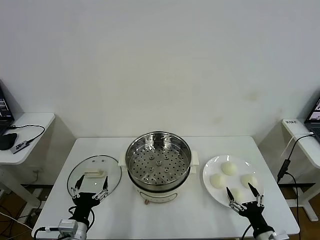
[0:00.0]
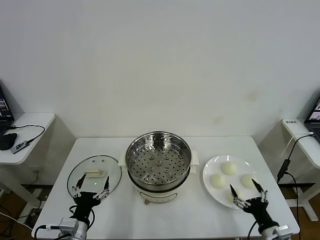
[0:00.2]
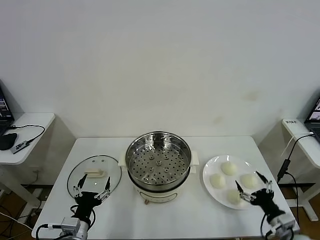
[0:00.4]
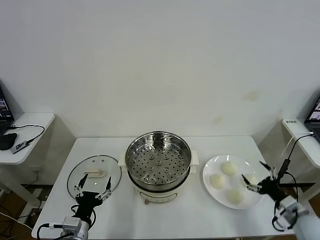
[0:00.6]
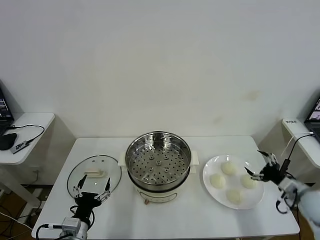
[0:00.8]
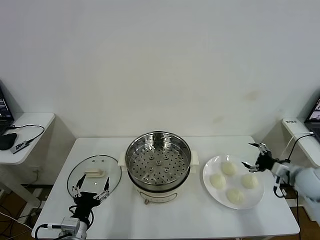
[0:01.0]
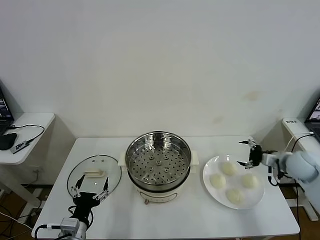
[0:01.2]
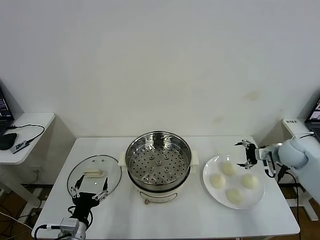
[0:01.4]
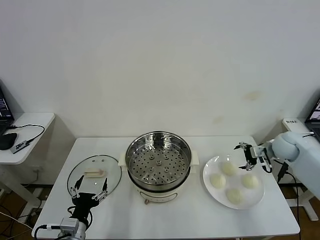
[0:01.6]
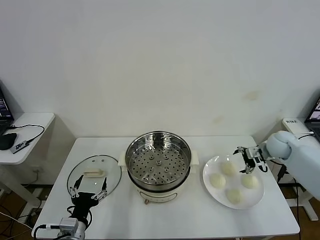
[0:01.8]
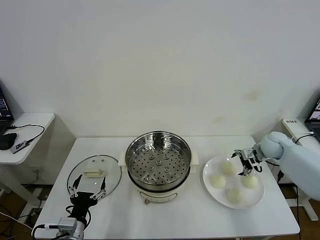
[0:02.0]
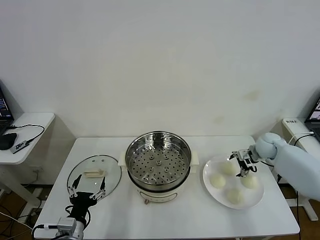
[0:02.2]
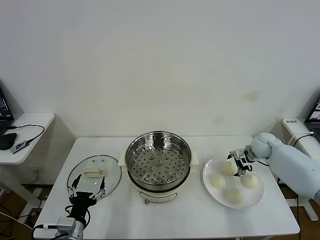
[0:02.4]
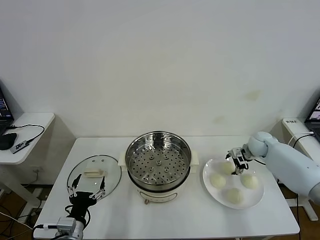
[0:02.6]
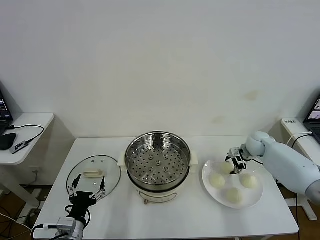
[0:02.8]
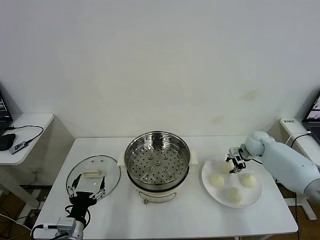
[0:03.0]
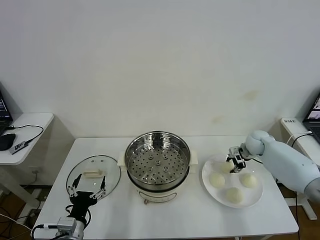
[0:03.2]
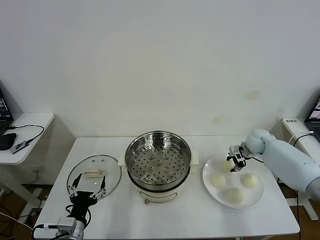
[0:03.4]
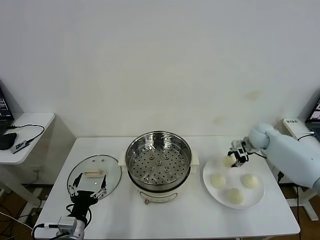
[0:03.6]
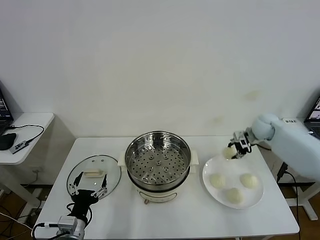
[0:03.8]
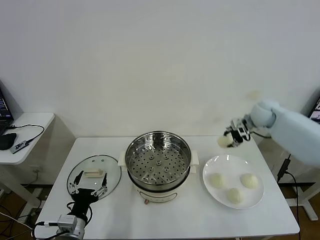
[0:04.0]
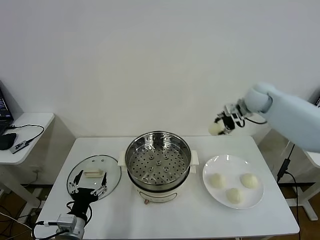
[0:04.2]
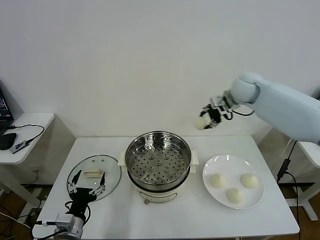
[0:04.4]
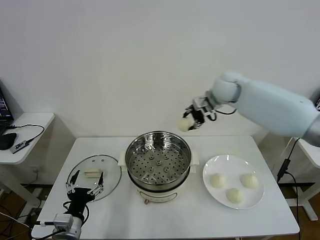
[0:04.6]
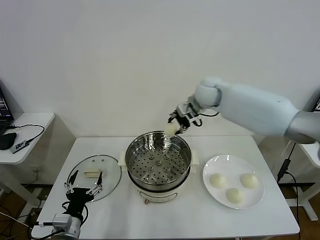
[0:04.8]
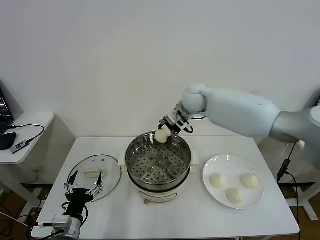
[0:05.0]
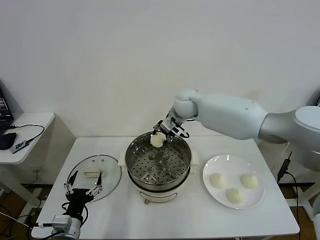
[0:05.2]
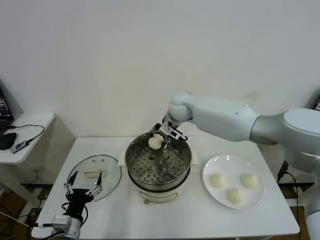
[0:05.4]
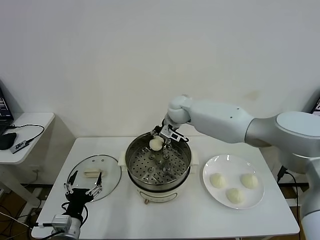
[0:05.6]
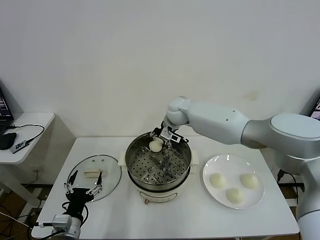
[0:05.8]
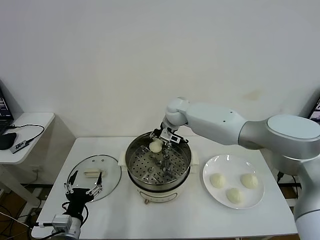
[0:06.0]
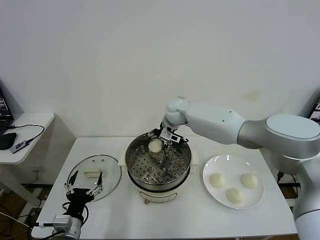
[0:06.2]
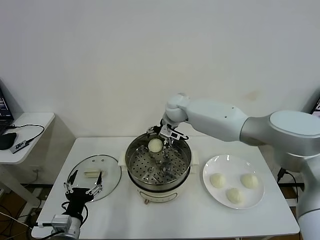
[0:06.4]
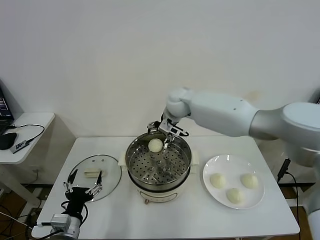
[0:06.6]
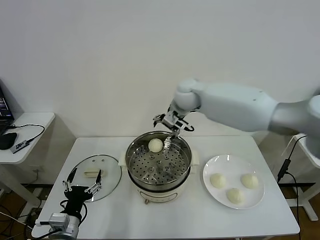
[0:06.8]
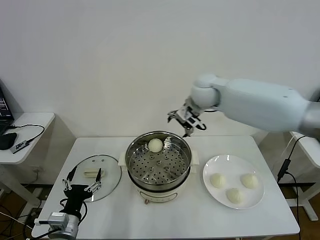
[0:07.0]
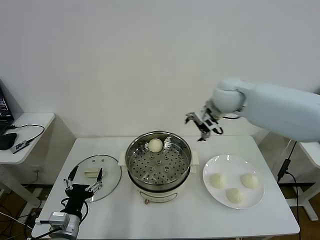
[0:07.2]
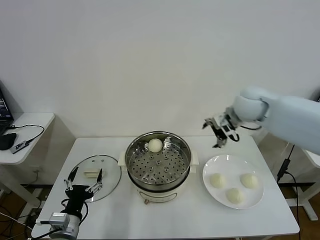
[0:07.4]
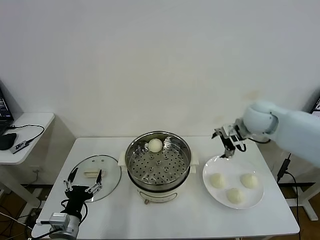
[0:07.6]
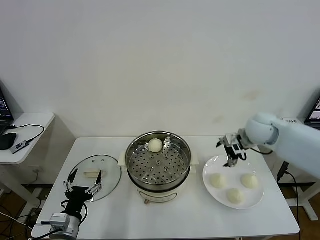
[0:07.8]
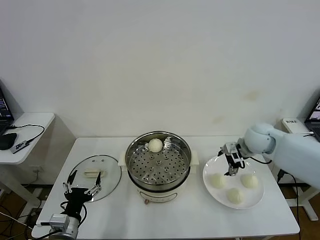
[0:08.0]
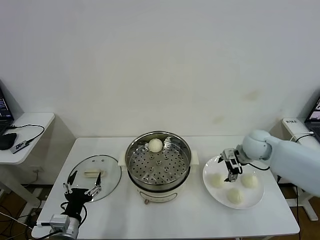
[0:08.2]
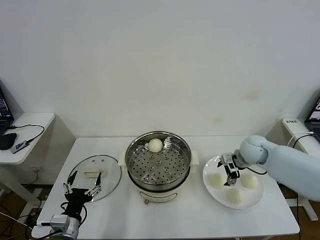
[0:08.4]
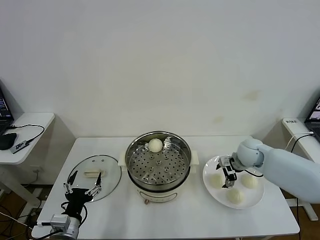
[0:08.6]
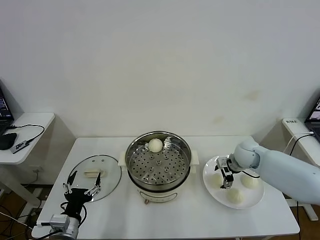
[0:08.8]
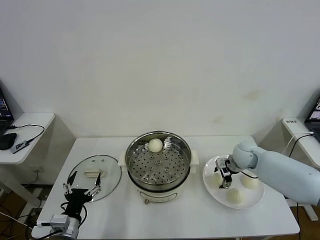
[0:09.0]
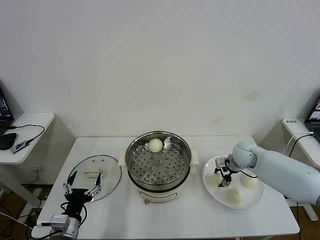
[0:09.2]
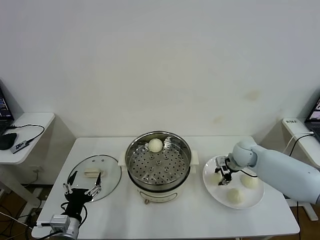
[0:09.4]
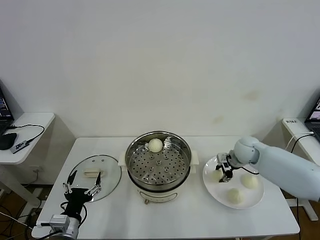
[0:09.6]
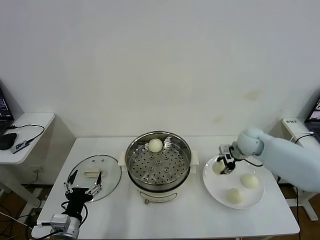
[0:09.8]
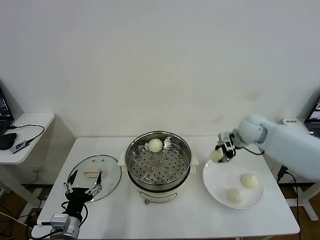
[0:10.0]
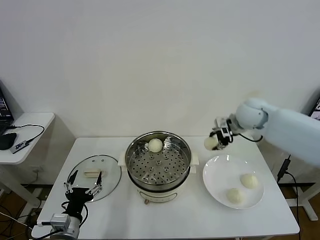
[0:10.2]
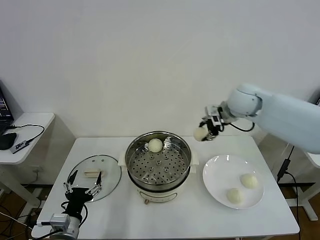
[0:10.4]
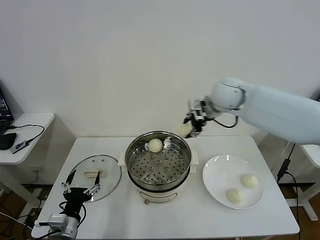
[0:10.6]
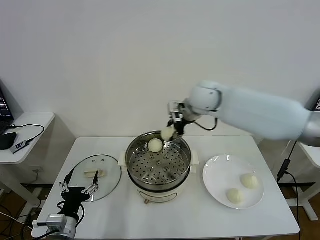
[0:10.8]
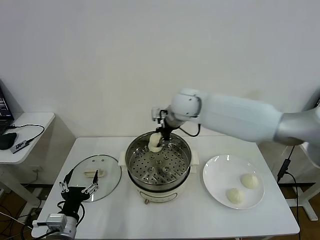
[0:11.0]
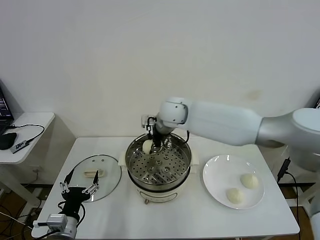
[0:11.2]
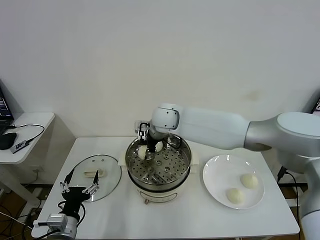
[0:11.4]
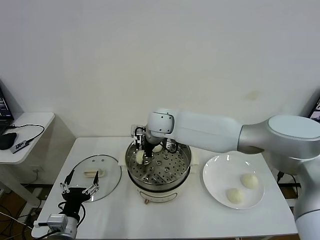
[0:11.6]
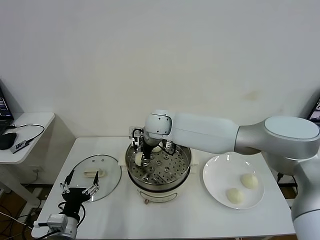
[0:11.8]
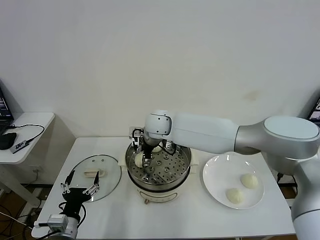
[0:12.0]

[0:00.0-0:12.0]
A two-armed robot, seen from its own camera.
Task of the whole recording: take steamed baozi put them in steamer then cover it.
Step, 0:00.0 to 0:03.2: Grasp the baozi in the plate with right gripper.
Step, 0:03.4 to 0:06.2: Place the baozi on the steamer with right gripper.
Step, 0:06.4 to 0:09.4: Grasp the baozi in the plate with right gripper.
0:01.6 to 0:03.0: The right gripper goes some 10 cm forward and downward, and closes up.
0:03.0 to 0:04.4: The right gripper goes approximately 30 cm upward and to the left.
0:04.4 to 0:06.0: The right gripper goes some 20 cm to the left and downward, and opens its fingers.
0:06.0 to 0:07.6: The right gripper heads to the right and backward, covering about 25 cm, and opens.
0:07.6 to 0:09.0: The right gripper is displaced downward by roughly 15 cm, and closes.
0:09.0 to 0:10.4: The right gripper shifts about 25 cm upward and to the left, and closes.
0:10.4 to 0:12.0: The right gripper travels to the left and downward by some 25 cm, and opens its fingers.

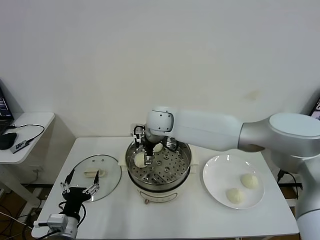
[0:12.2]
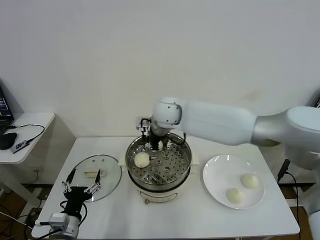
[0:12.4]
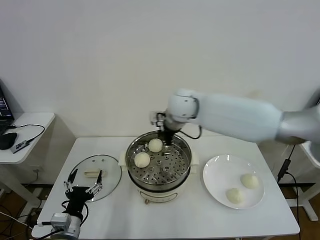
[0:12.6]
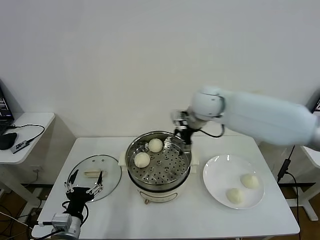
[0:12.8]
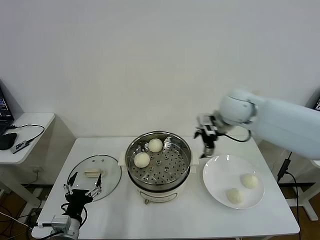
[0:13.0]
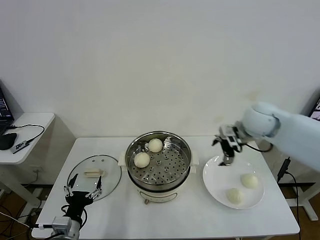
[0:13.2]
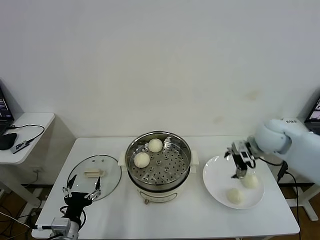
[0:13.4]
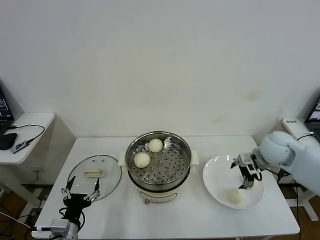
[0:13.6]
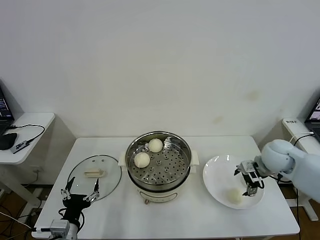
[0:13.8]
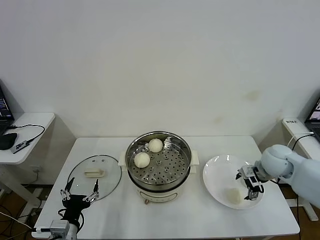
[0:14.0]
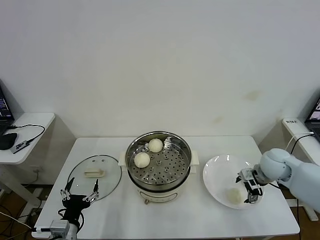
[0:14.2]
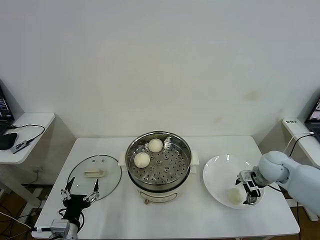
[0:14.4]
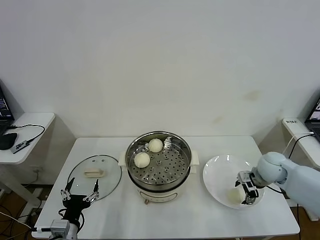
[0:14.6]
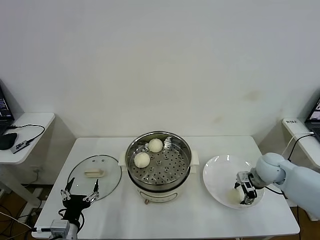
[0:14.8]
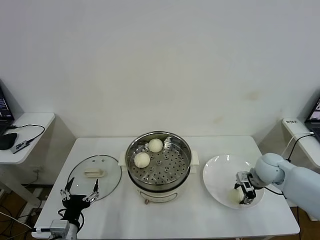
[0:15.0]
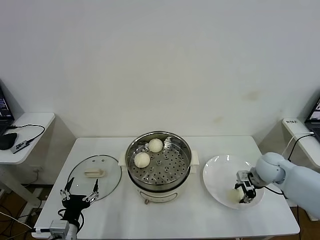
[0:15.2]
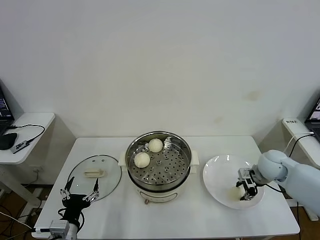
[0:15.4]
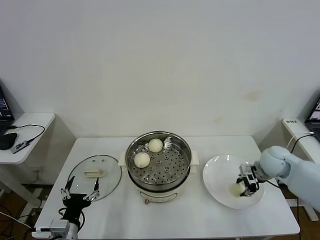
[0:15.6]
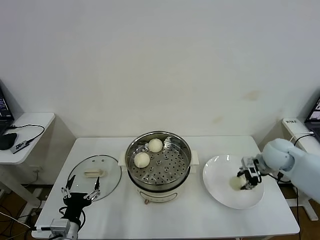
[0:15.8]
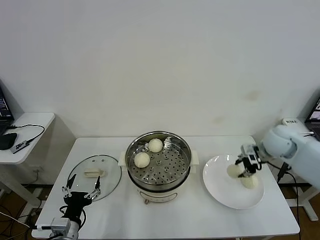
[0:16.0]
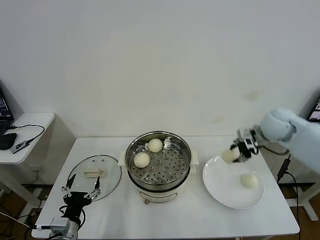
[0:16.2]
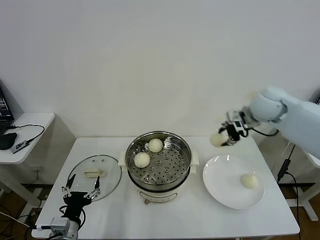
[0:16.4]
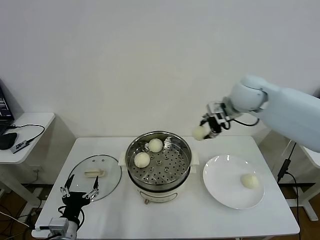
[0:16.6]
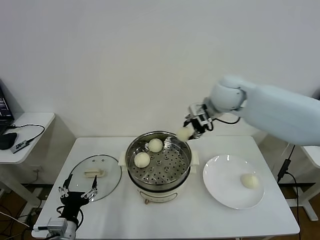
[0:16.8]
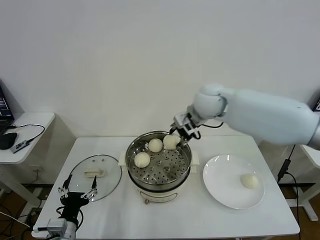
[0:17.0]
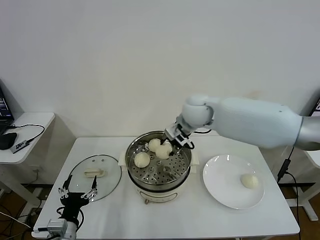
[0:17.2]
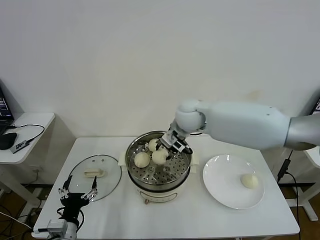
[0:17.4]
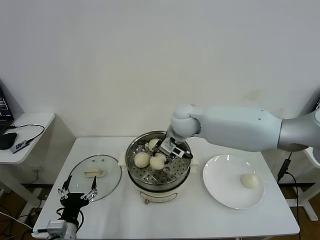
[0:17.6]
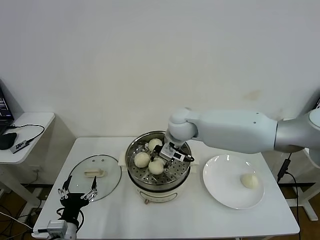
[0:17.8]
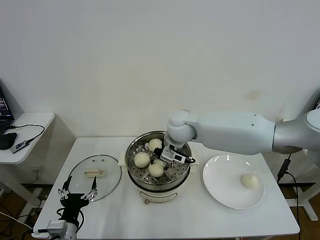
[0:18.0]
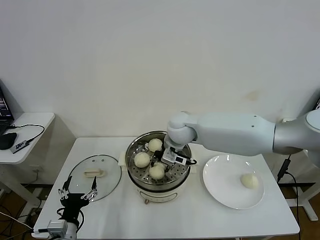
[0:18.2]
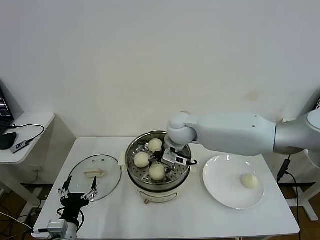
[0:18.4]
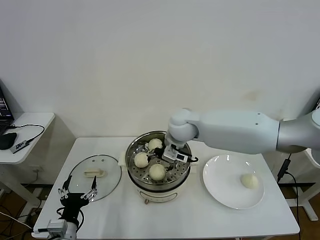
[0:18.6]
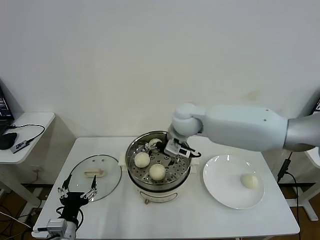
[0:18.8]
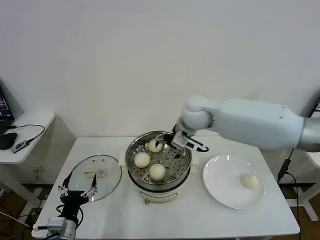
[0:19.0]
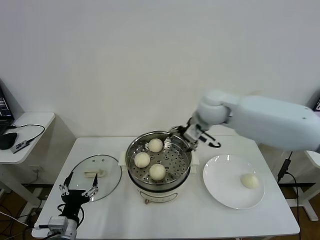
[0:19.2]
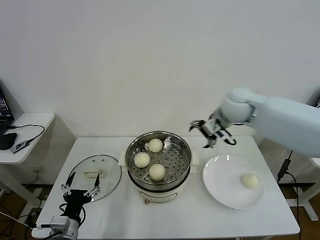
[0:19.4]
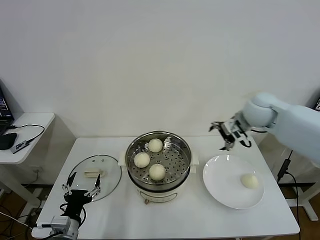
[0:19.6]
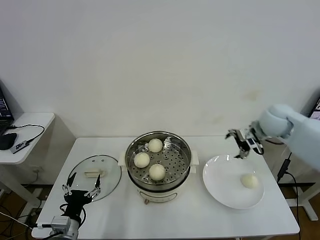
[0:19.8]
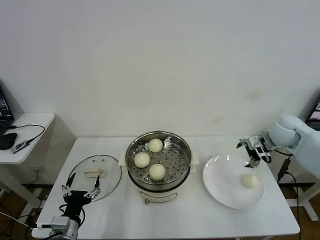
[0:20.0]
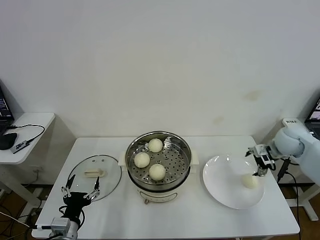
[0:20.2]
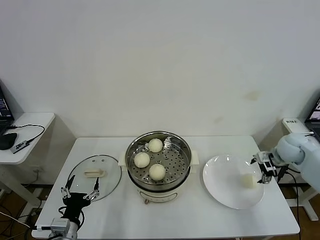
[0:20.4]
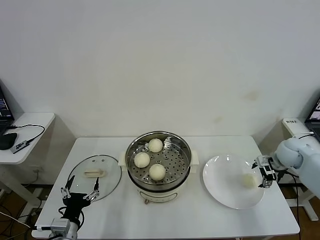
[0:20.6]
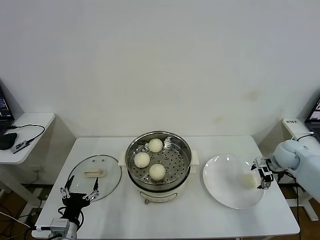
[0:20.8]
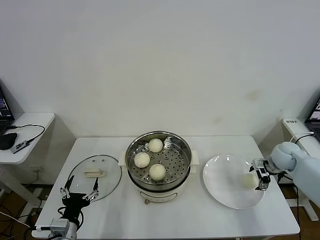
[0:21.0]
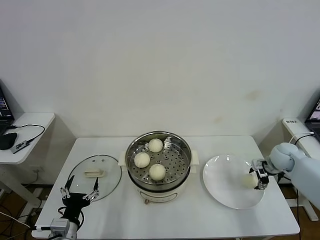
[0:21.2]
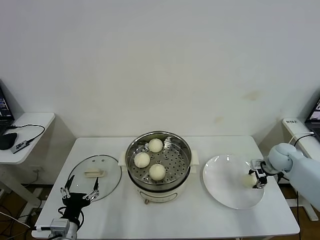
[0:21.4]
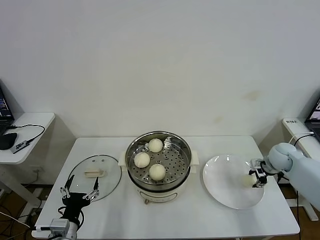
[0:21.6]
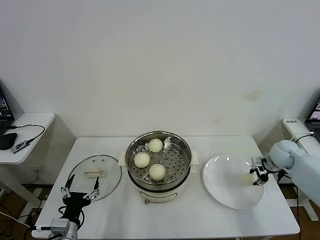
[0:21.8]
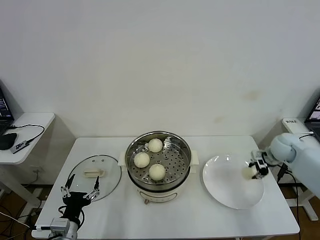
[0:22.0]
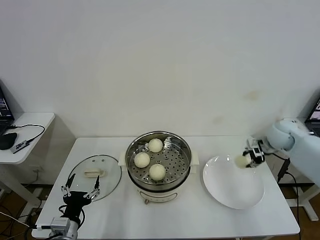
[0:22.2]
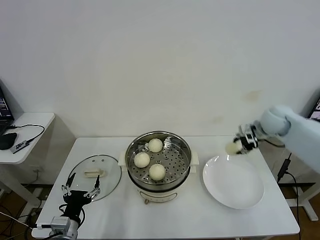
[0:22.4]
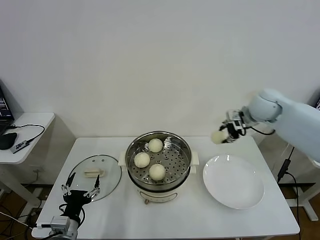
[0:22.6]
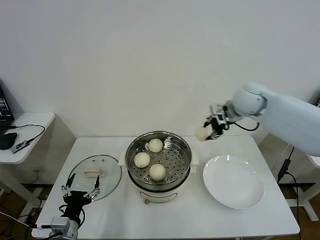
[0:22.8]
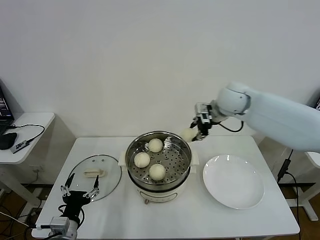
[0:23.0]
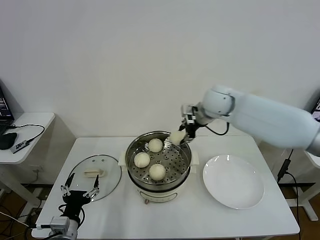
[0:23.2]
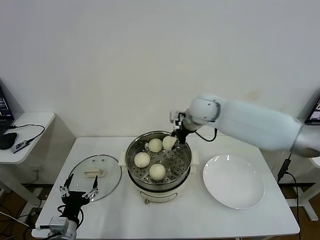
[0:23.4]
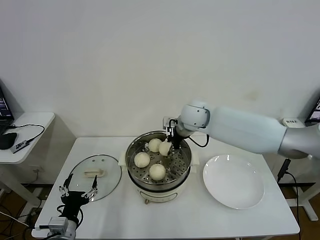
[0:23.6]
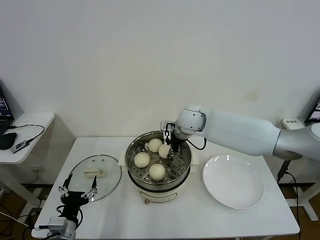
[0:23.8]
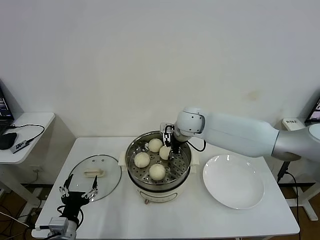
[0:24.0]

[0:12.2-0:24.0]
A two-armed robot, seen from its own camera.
Task of the whole recording: take steamed baozi put them in steamer then cover it.
Step, 0:12.4 to 0:15.4: Grasp the baozi in the plate with right gripper.
Step, 0:15.6 to 0:18.4: Place the baozi on the steamer with right gripper.
Step, 0:18.8 to 0:21.6: Grasp the baozi in the plate with right gripper.
0:12.2 to 0:13.6: The right gripper is displaced to the right by about 35 cm.
0:13.6 to 0:15.2: The right gripper moves downward, approximately 10 cm, and closes.
0:15.2 to 0:16.6: The right gripper heads upward and to the left, covering roughly 30 cm.
0:16.6 to 0:18.2: The right gripper goes approximately 20 cm to the left and downward.
0:18.2 to 0:19.6: The right gripper goes about 25 cm to the right, and opens up.
0:19.6 to 0:21.0: The right gripper goes approximately 25 cm downward and to the right.
0:21.0 to 0:22.6: The right gripper heads upward and to the left, covering about 25 cm, and closes up.
0:22.6 to 0:24.0: The right gripper is displaced to the left by some 20 cm.
